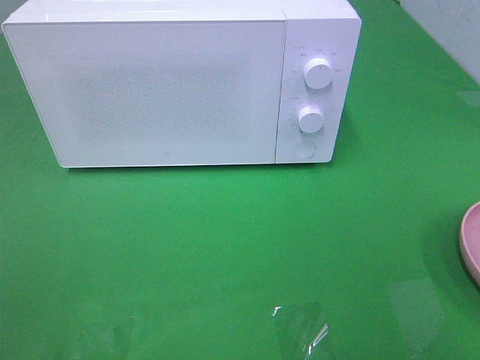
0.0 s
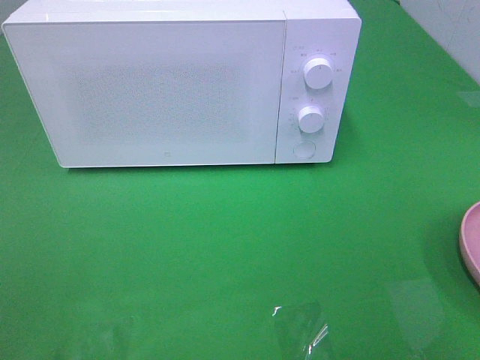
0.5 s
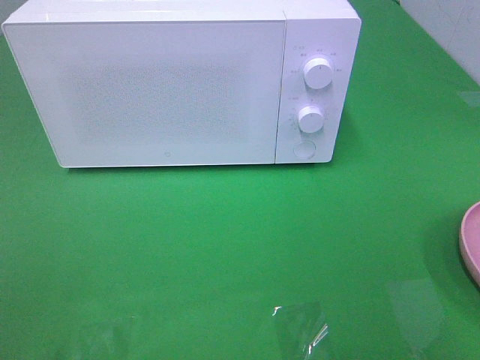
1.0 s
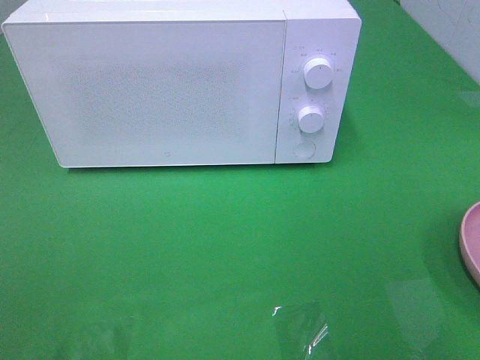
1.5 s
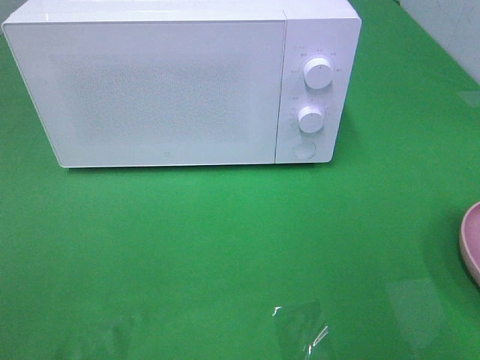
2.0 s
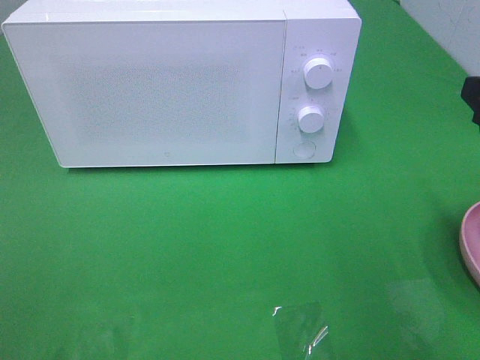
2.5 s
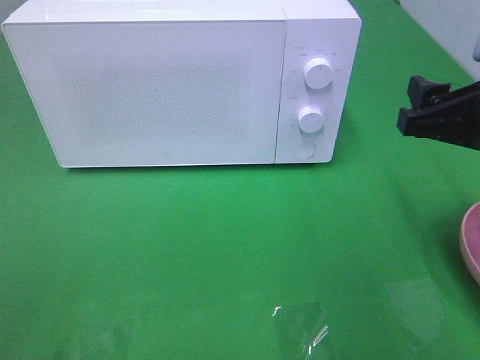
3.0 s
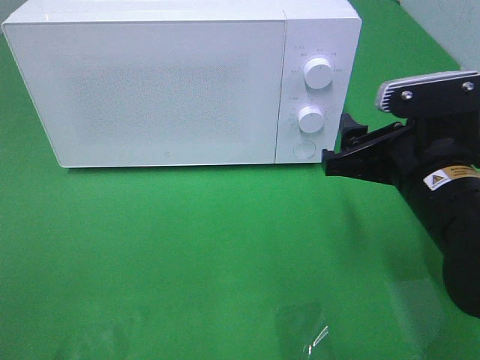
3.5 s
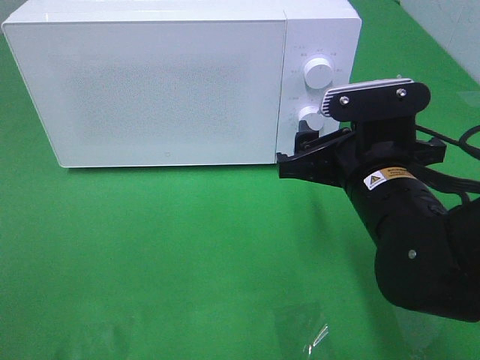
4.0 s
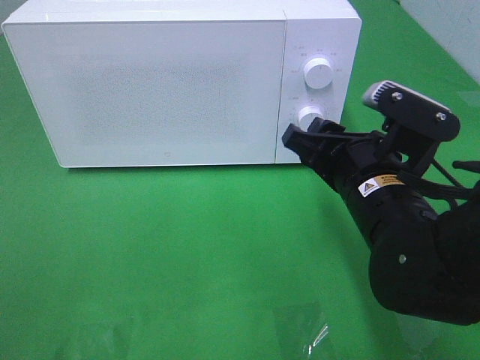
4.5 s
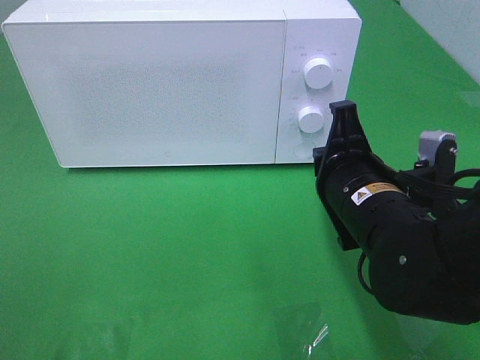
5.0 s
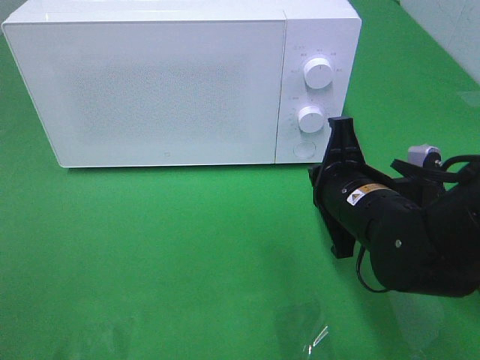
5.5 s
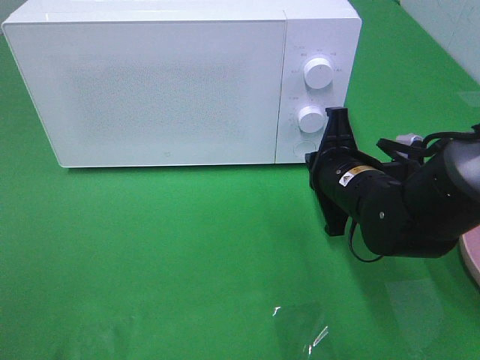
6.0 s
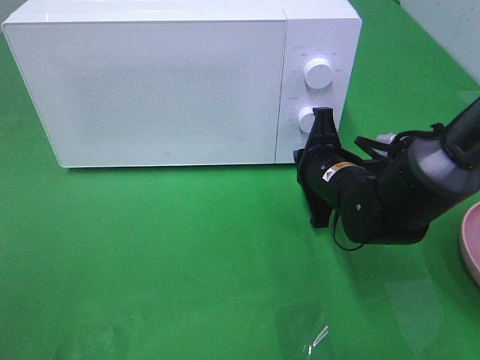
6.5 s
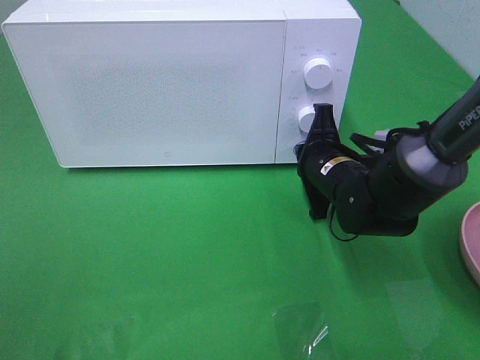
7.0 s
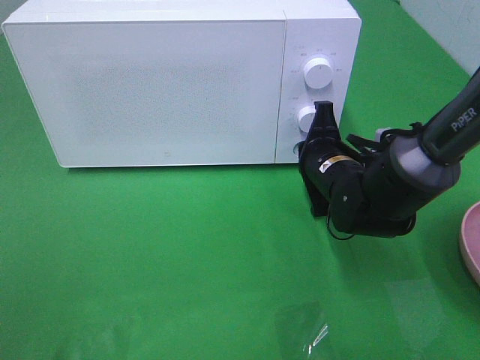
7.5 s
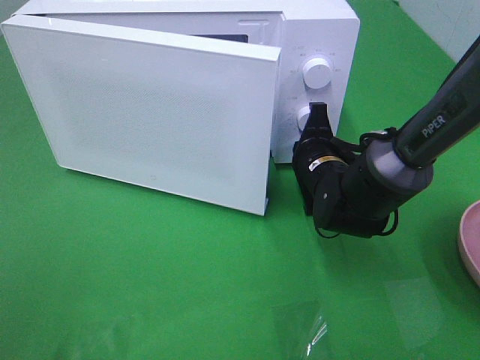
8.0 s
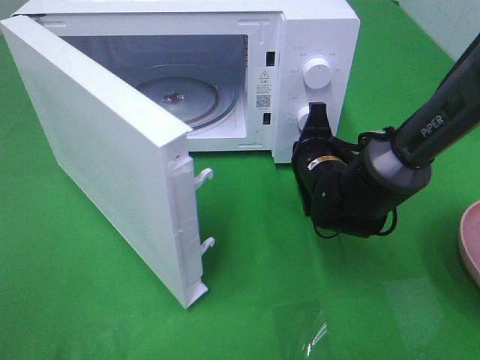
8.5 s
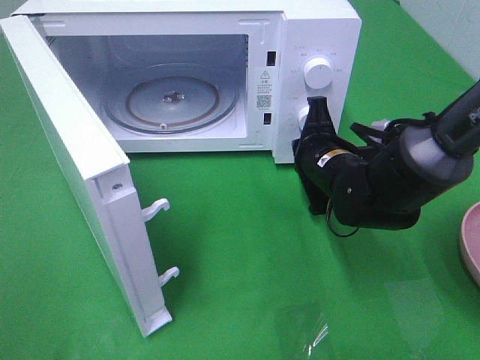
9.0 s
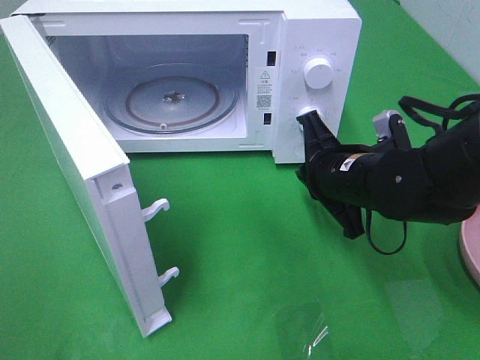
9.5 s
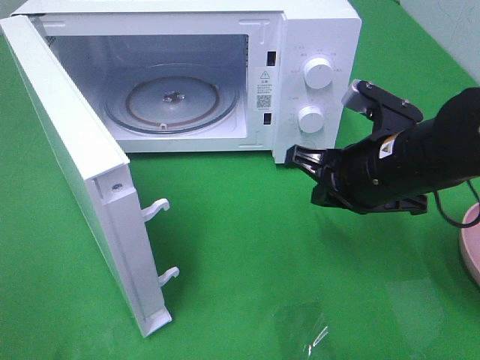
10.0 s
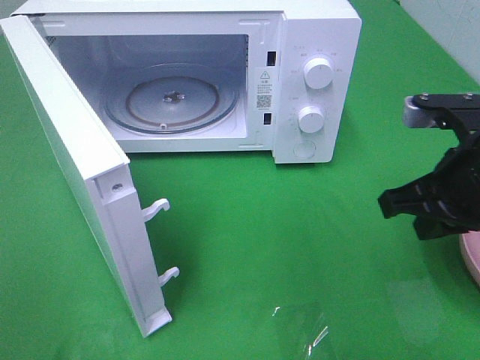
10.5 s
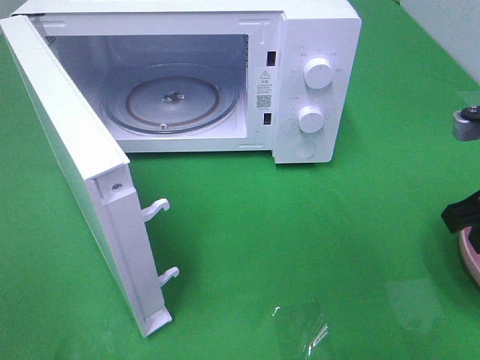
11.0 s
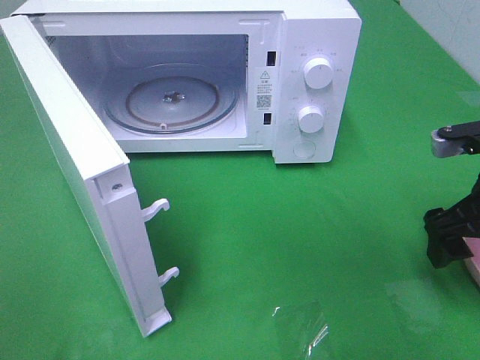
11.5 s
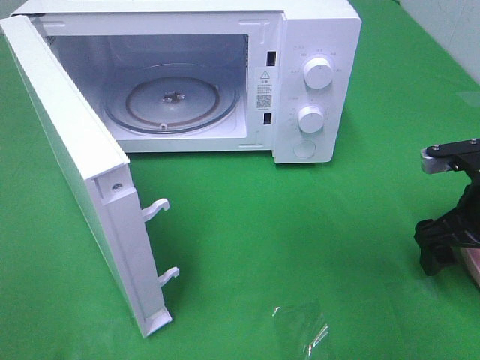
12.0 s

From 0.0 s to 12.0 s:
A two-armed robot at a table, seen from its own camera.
Task of the whole recording: Heat the burger.
Step, from 0.0 s to 9.0 s: Right hand: press the switch.
From 2.0 s to 4.0 s: The right gripper goes some 20 cm to the left, downward and forward.
From 4.0 s to 6.0 s: The right gripper is displaced forward and downward by about 10 cm, and closes its fingers.
From 6.0 s to 8.0 s: The right gripper heads forward, covering approximately 5 cm.
From 8.0 s to 10.0 s: The right gripper heads upward and backward, covering about 15 cm.
From 10.0 s to 12.0 s: The right gripper is displaced to the right by roughly 10 cm, and opens up.

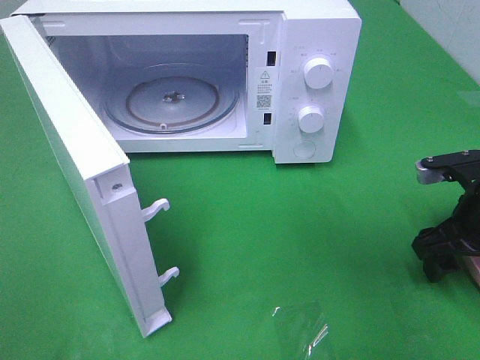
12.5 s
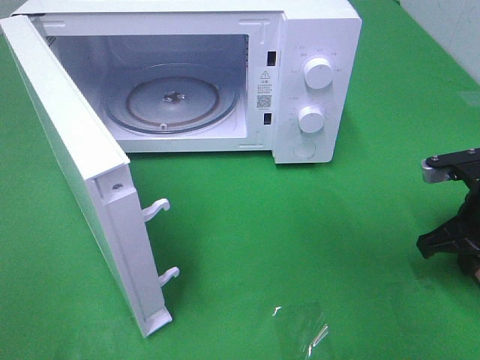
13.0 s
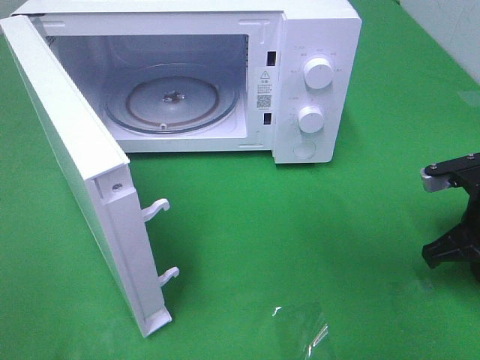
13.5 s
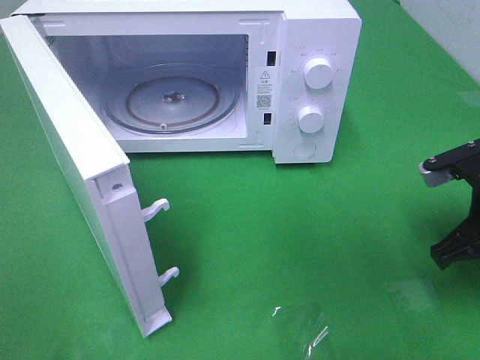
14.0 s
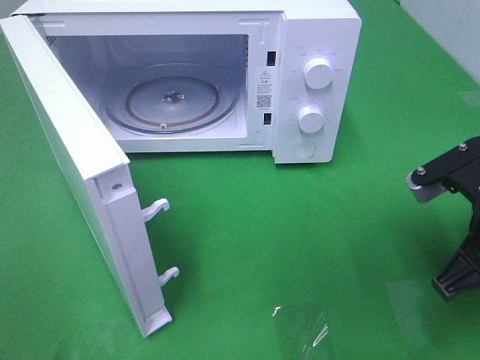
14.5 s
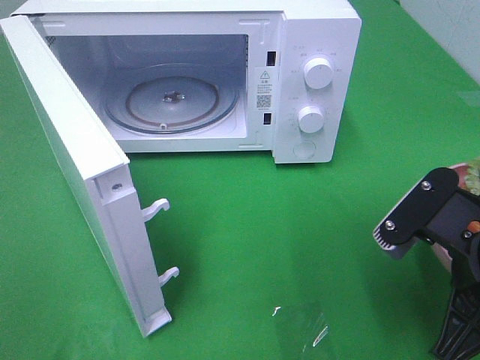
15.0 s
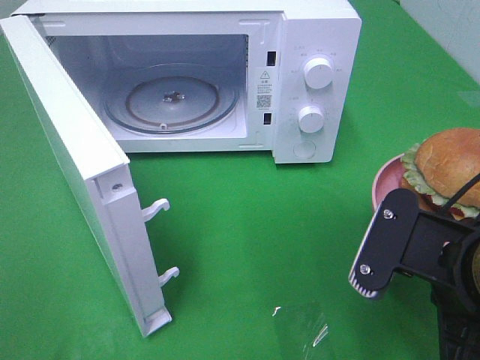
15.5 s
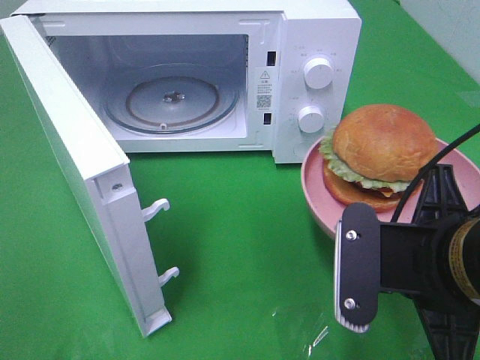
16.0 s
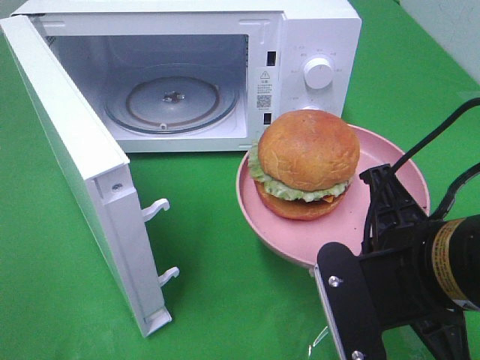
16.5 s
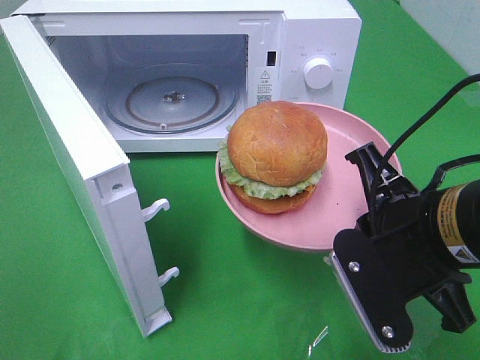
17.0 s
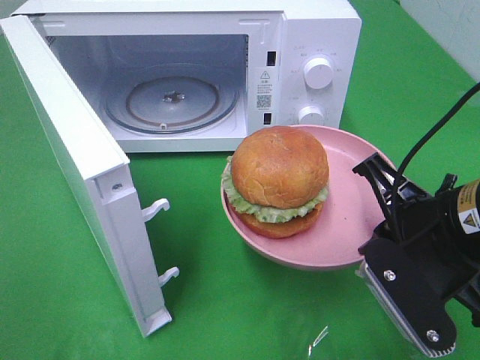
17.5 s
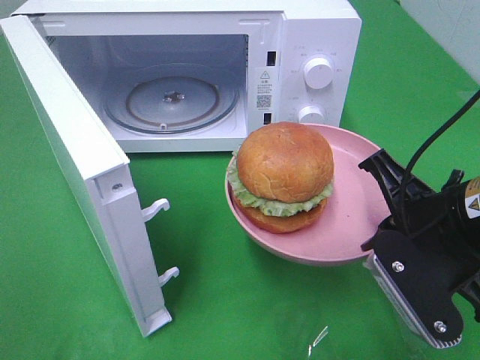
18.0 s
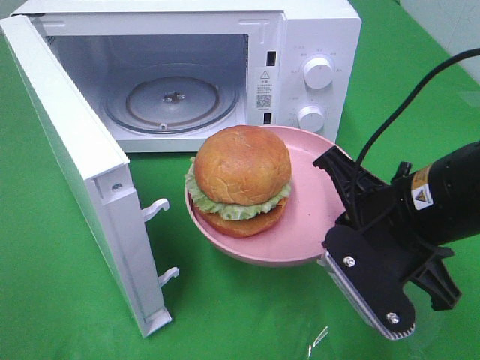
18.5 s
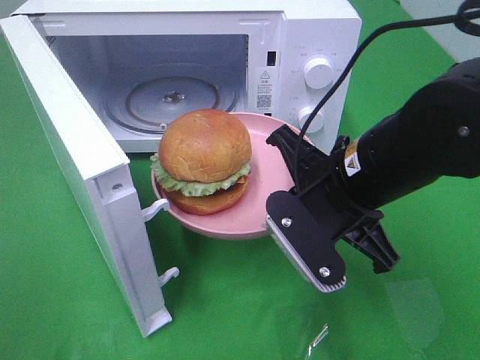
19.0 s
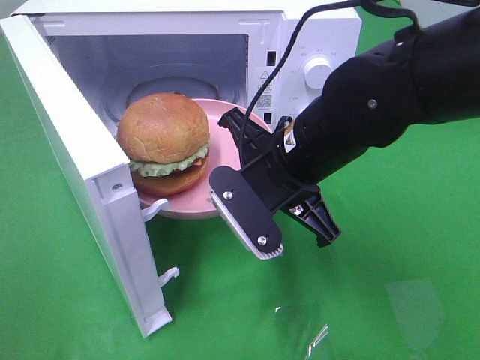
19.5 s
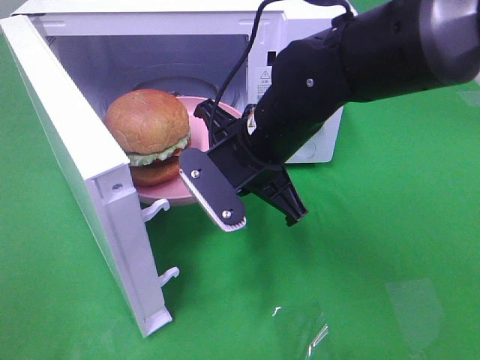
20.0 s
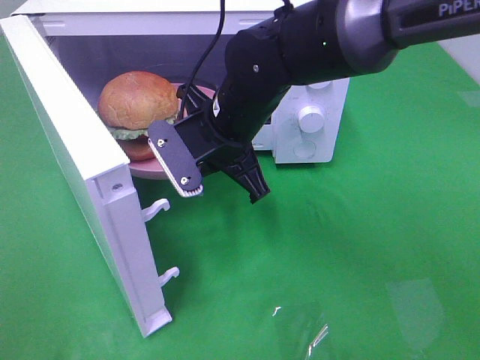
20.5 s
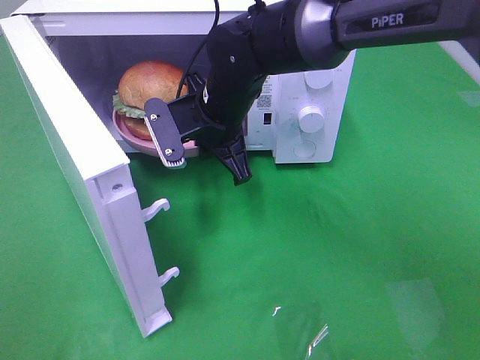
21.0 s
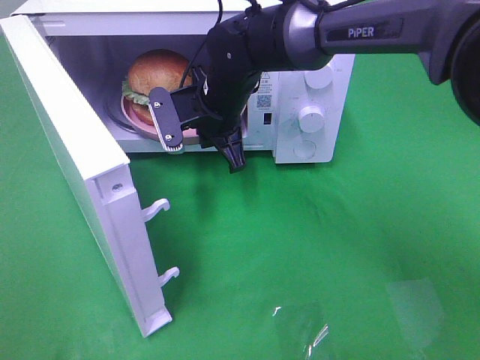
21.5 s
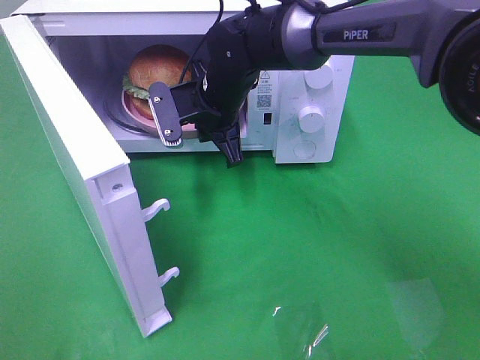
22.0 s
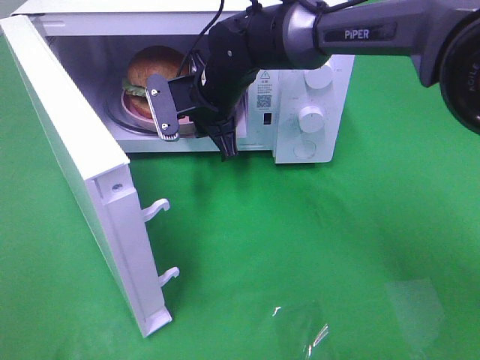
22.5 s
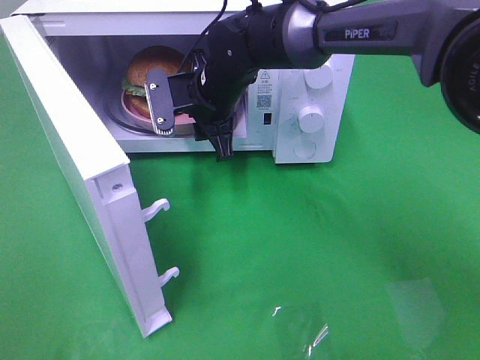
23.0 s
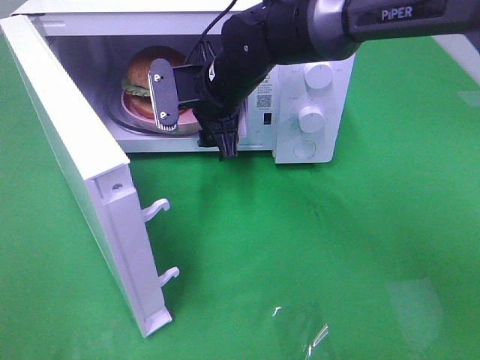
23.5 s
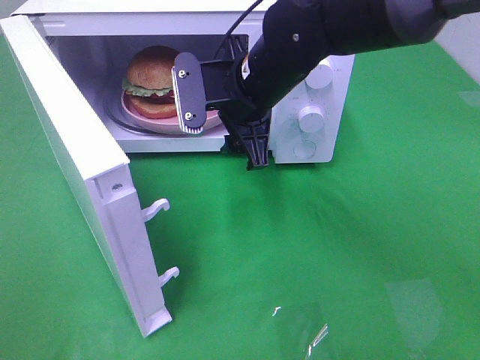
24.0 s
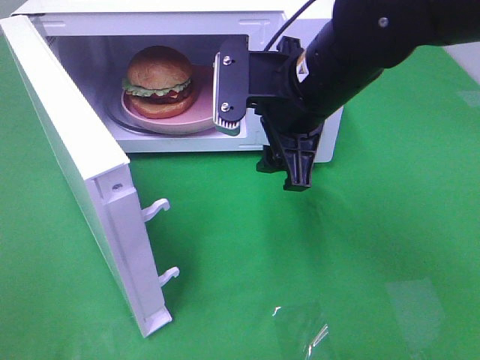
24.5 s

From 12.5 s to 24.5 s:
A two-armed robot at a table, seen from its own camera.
Task of the whole recording: Heat the burger.
Step, from 13.0 s to 23.0 s: Right hand: place the plate in the microwave.
From 12.5 s to 14.5 s: The right gripper moves backward, upward and to the left, roughly 10 cm, and closes its fingers.
From 14.5 s to 16.5 s: The right gripper shifts some 10 cm to the left and backward.
From 16.5 s to 18.5 s: The right gripper goes approximately 5 cm forward.
From 18.5 s to 20.5 s: The right gripper shifts some 20 cm to the left and forward.
From 20.5 s to 22.5 s: The right gripper shifts roughly 10 cm forward.
From 22.5 s to 24.5 s: The right gripper shifts some 20 cm backward, to the right and upward, and opens.

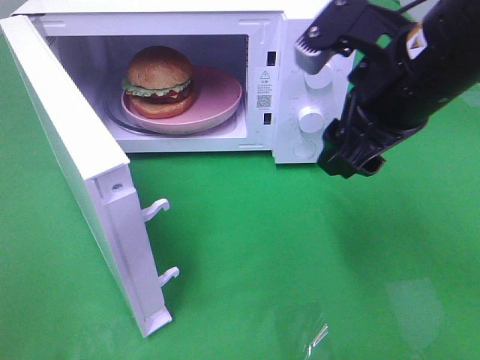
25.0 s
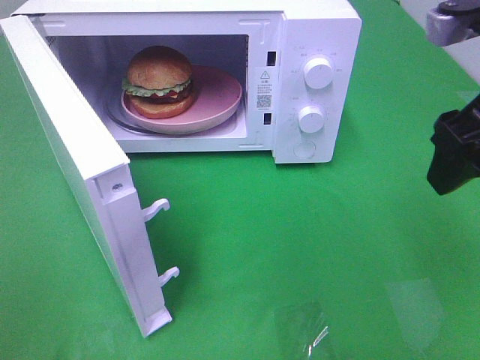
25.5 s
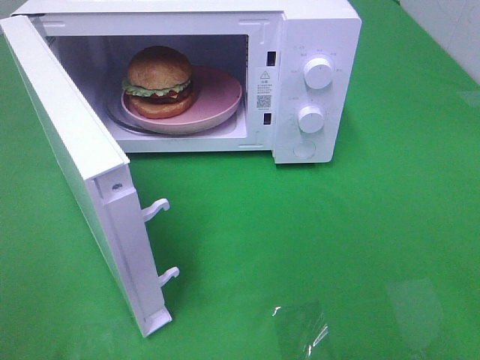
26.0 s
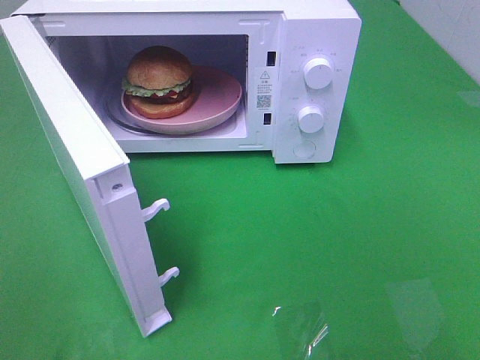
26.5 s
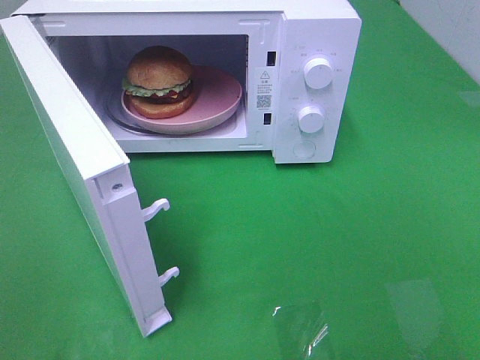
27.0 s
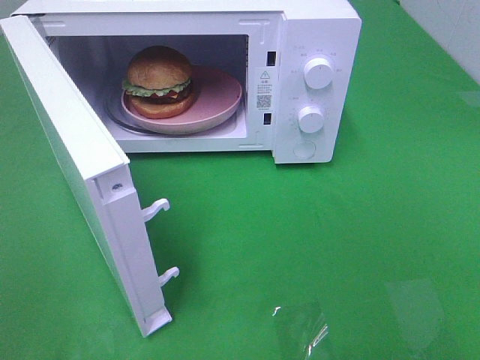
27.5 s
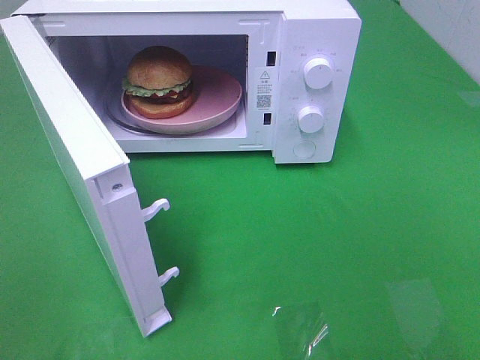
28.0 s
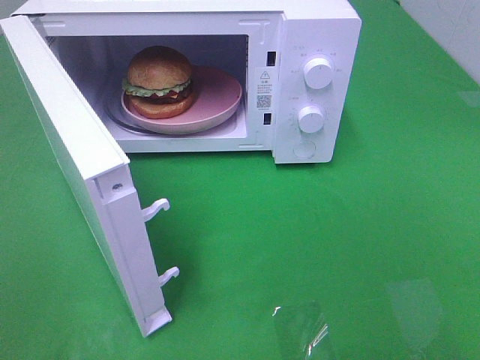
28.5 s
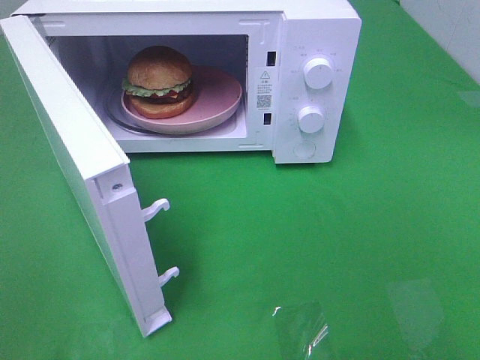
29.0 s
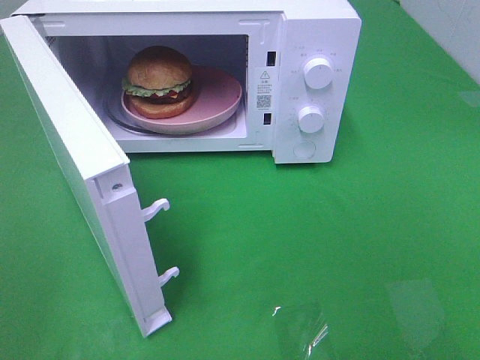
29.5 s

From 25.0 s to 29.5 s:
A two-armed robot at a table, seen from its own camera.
Task of the whole recording: Heat the burger.
From 25.0 s to 27.0 s: The right gripper is displaced backward and to the right by some 30 cm.
